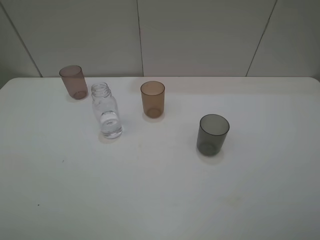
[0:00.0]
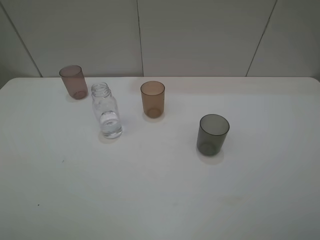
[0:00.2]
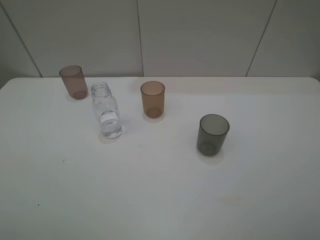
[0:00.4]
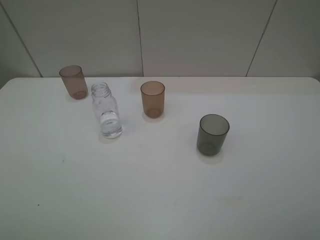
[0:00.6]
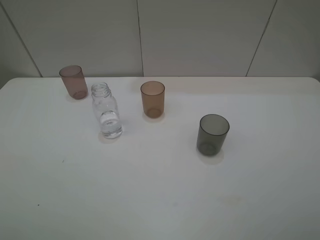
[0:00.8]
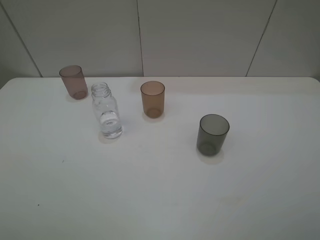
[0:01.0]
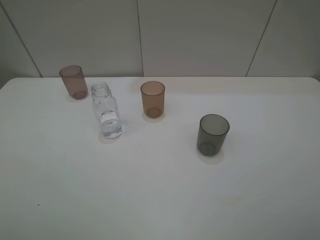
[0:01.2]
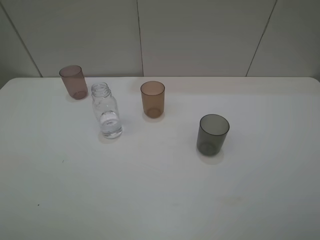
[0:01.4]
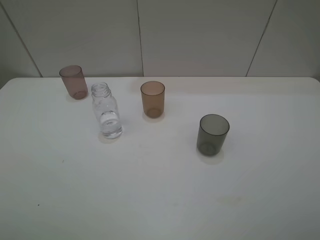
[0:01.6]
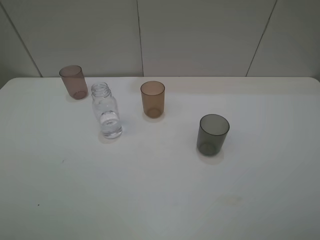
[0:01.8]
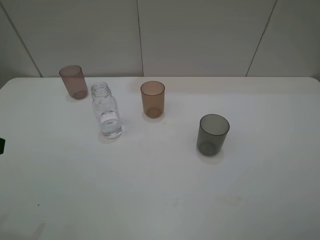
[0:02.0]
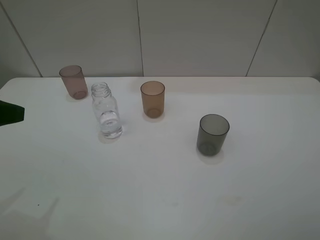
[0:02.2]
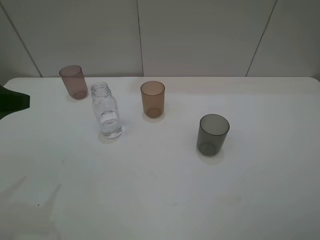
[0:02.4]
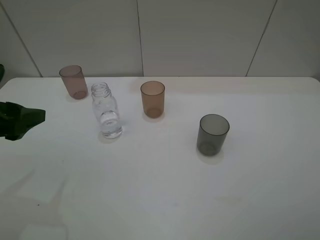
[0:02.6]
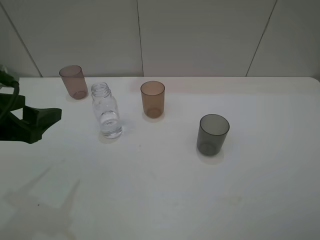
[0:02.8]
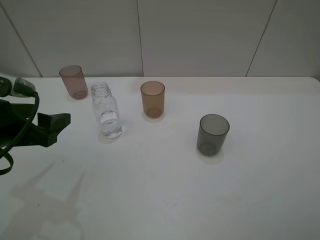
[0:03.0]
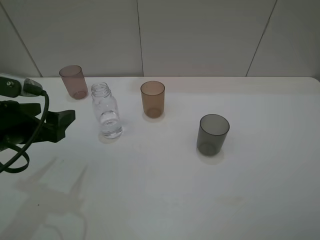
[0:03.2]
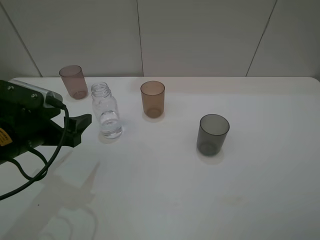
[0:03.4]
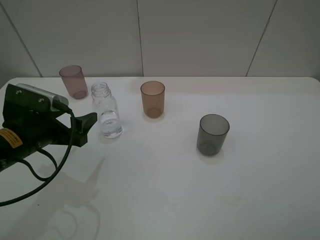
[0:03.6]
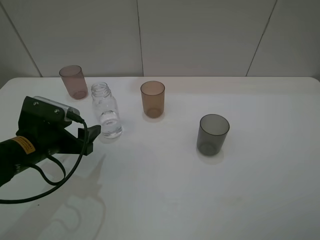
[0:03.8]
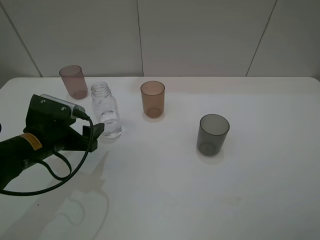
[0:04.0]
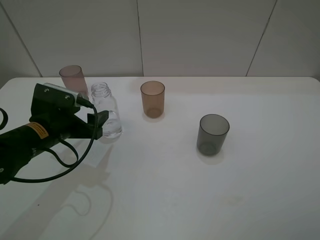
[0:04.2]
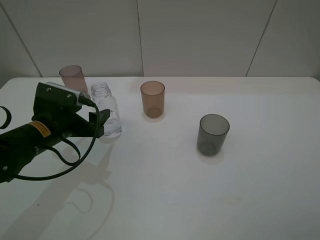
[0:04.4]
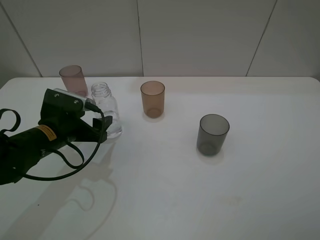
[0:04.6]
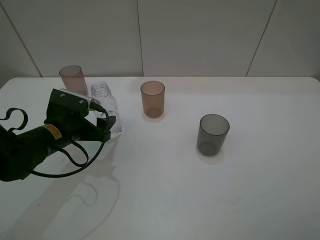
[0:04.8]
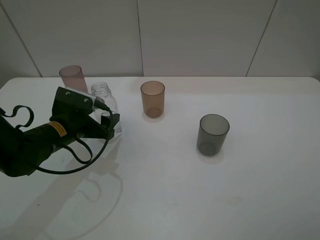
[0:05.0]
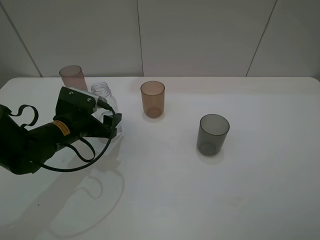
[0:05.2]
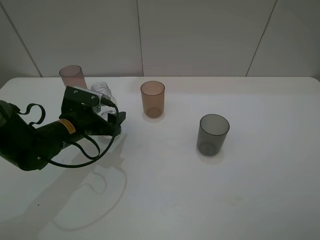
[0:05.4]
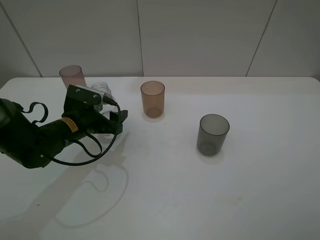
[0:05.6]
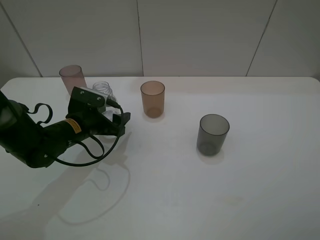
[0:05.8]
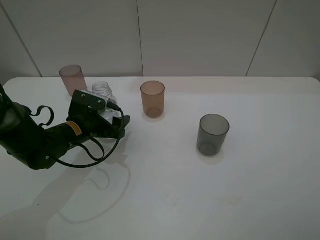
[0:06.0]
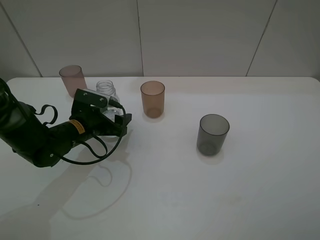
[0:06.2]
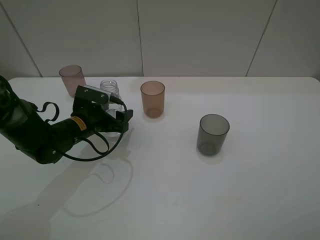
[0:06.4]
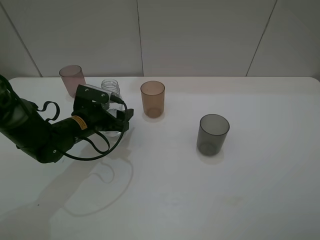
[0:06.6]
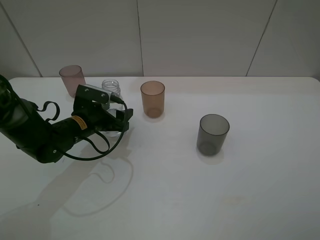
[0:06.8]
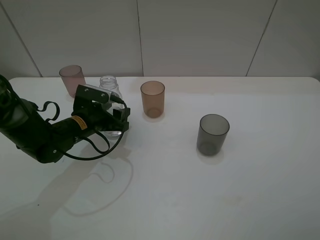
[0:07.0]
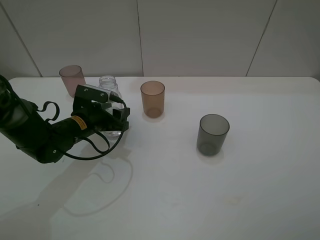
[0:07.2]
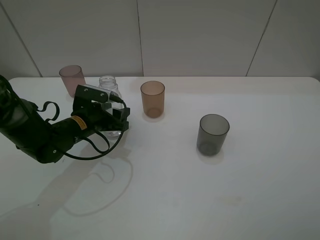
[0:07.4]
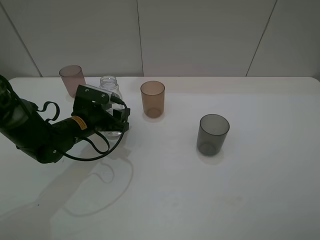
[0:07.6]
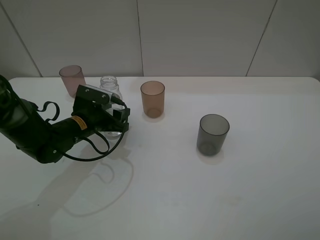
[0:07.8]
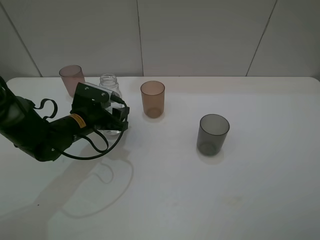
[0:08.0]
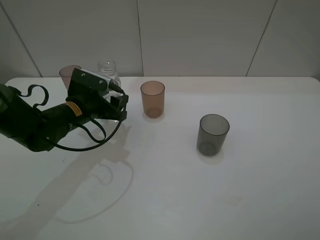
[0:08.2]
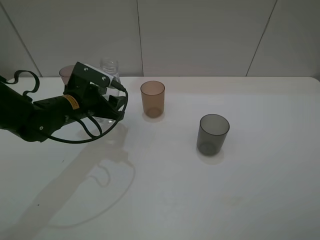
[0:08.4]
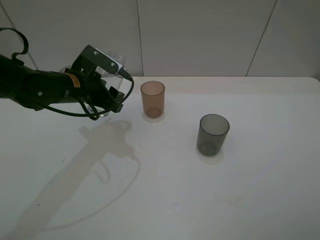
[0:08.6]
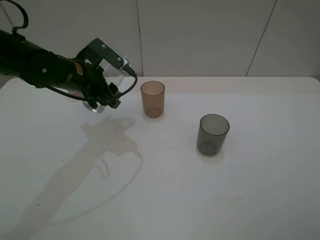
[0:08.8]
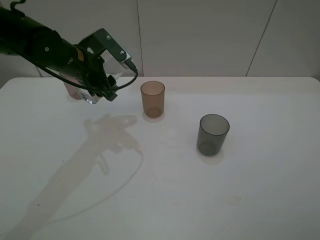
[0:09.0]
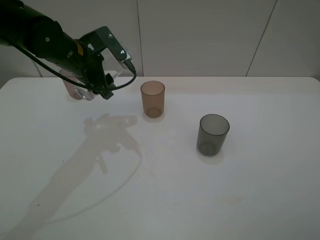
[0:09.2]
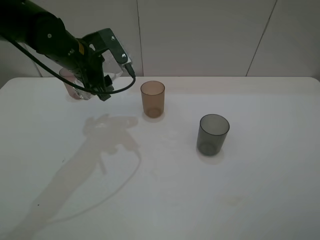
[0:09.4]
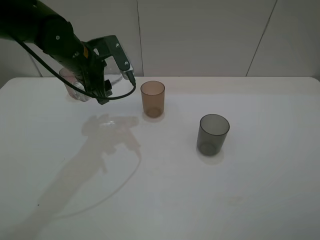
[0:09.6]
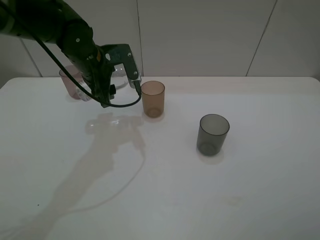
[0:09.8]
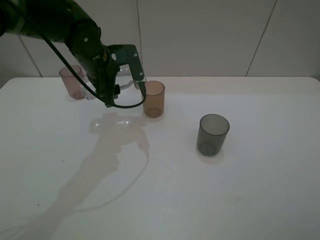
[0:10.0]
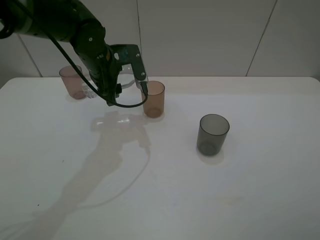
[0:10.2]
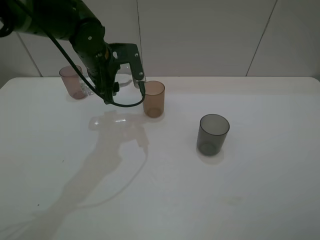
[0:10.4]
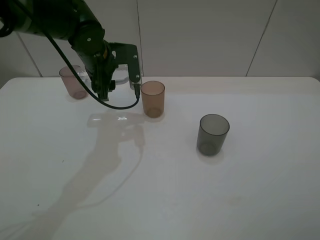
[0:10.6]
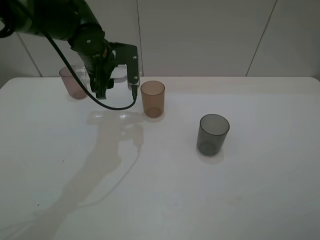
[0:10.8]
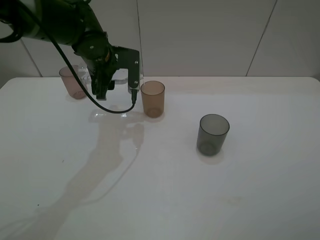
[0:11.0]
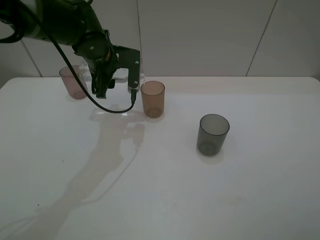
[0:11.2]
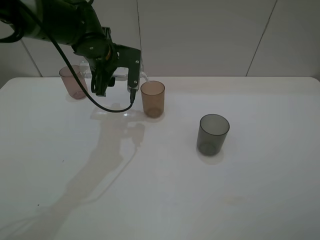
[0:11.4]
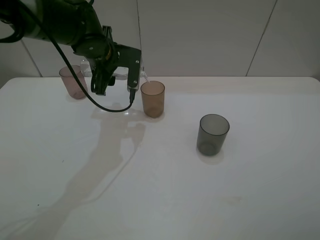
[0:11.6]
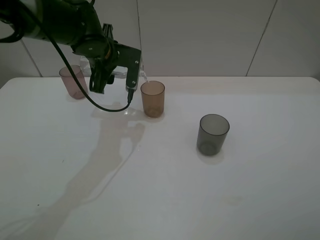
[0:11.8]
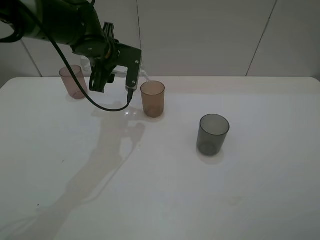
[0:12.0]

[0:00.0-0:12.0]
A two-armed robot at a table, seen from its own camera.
Task of the whole recording: pick up the bottle filled with water and pour water into the middle cup of the three cups.
Step, 0:00.0 to 0:05.8: Grasp the transparent bottle with the left gripper.
Step, 0:06.0 to 0:11.2: Pour water from transparent bottle to brown cup with the left gripper.
0:01.6 to 0:03.0: The left gripper moves forward, downward and to the right, approximately 20 cm.
0:03.0 to 0:04.4: The left gripper heads downward and forward, covering some 10 cm.
0:04.4 to 0:06.0: The left gripper shifts by some 5 cm.
0:06.0 to 0:07.6: The left gripper closes.
0:07.6 to 0:09.0: The left gripper is displaced upward and forward by some 15 cm.

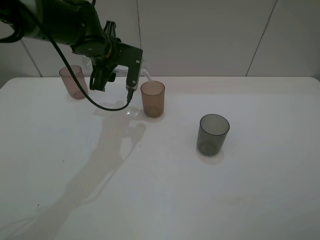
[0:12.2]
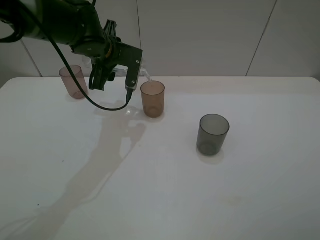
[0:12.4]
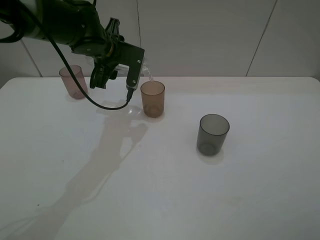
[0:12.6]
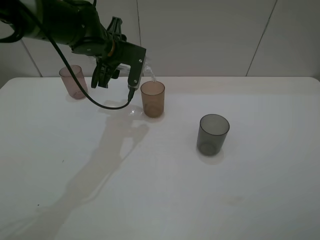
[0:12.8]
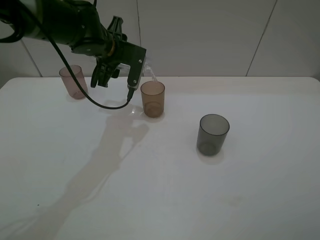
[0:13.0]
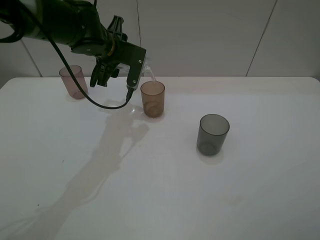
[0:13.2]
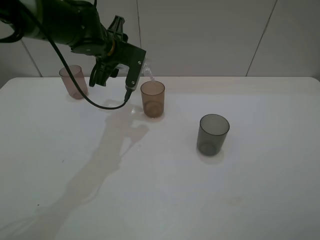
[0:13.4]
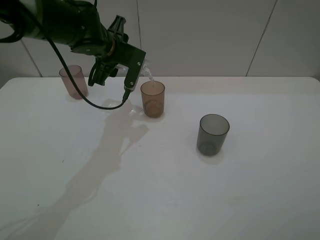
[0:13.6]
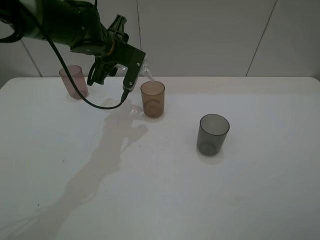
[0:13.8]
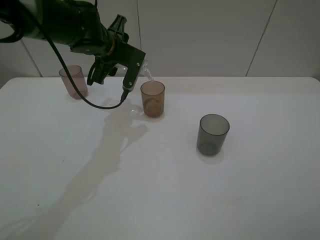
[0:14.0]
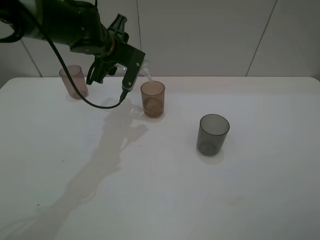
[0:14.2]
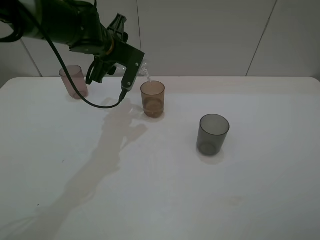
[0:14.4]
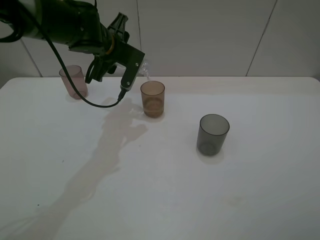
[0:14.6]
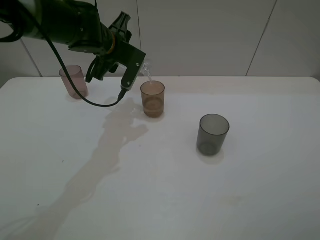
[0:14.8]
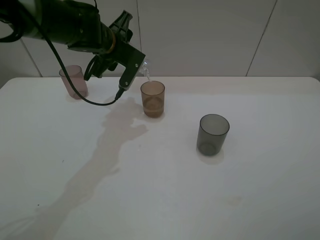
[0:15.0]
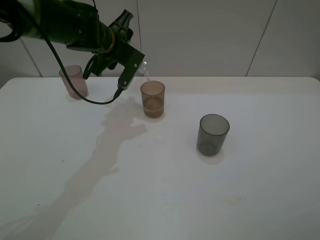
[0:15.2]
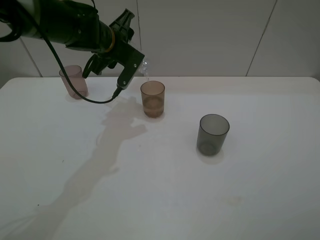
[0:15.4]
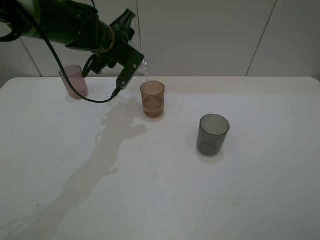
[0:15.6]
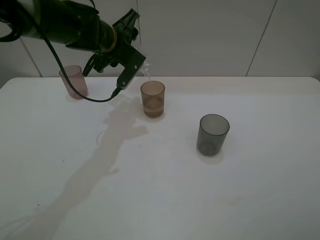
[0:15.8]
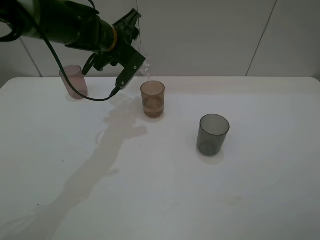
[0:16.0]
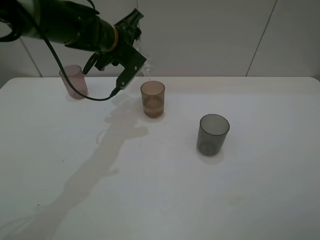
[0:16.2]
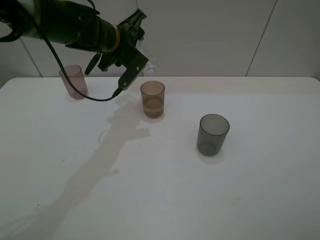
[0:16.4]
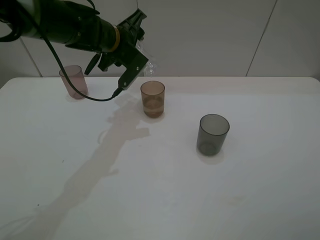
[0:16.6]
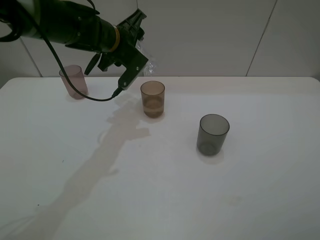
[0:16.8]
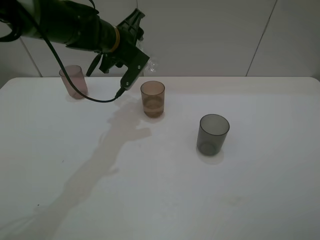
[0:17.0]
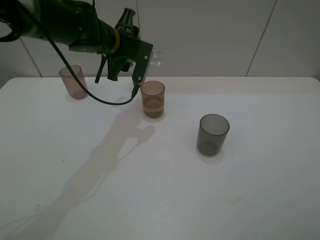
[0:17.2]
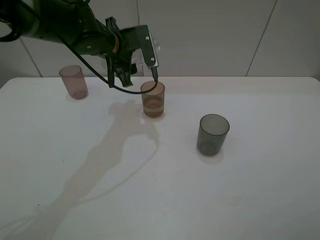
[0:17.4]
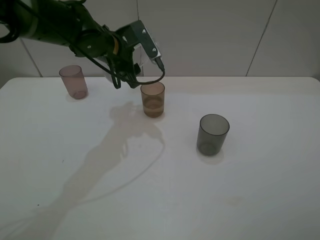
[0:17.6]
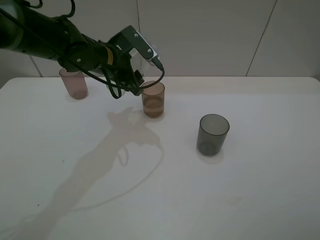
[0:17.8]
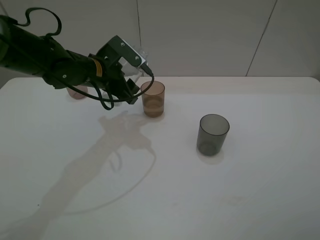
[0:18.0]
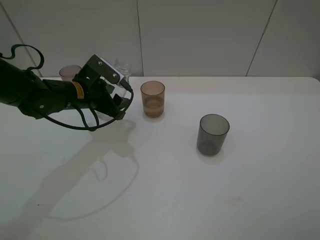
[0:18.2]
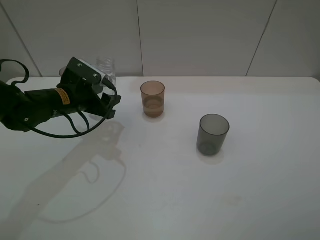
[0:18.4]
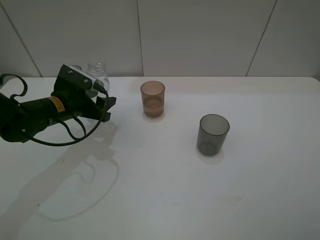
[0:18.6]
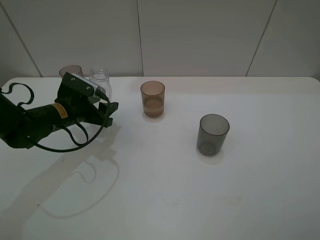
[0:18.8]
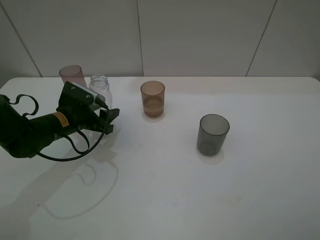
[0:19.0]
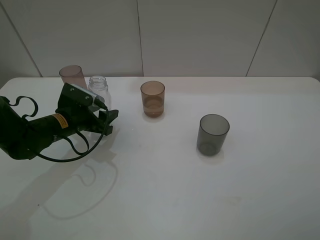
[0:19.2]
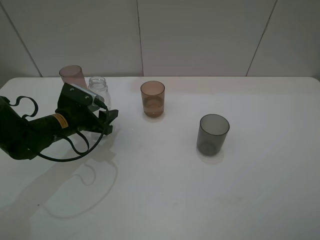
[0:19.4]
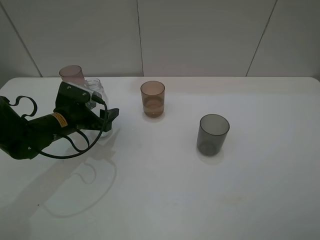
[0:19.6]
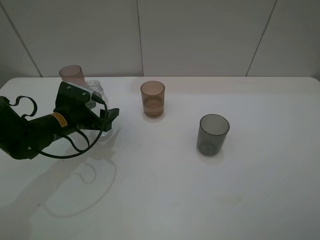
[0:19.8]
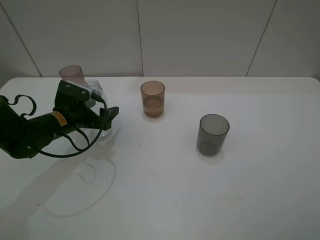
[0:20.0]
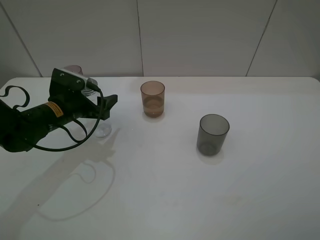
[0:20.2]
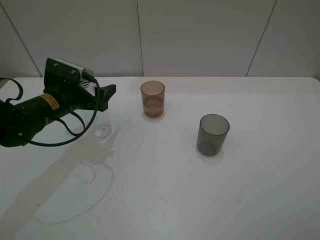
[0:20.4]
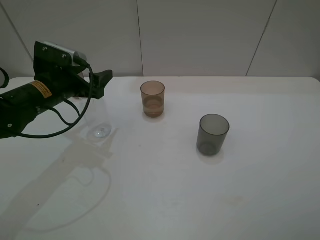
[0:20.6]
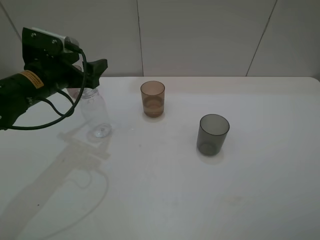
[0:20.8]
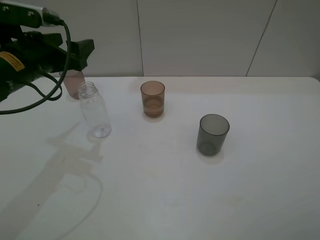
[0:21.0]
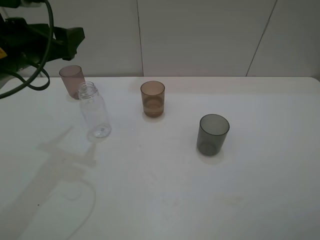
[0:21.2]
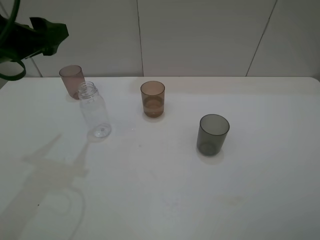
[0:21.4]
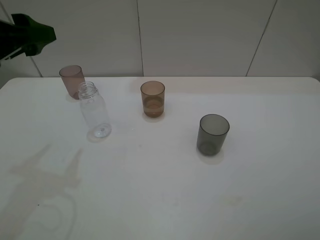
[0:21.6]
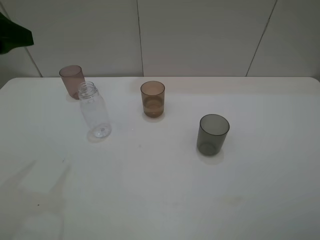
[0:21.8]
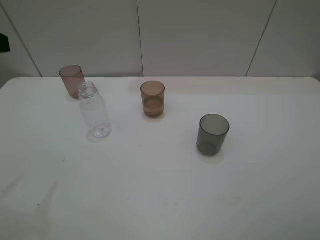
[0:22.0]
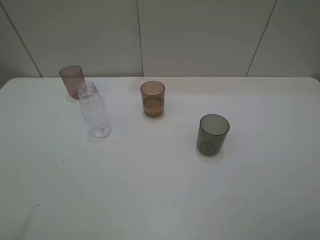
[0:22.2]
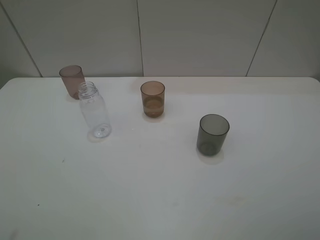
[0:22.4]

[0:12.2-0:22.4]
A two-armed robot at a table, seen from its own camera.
Task of the whole recording: pick up the bottle filled with water and pour water into the middle cup of the three cups.
Step, 0:12.2 to 0:20.4: Place the transparent bottle with the left gripper.
0:12.2 to 0:13.6: The grippers move only a little.
0:13.6 to 0:15.2: The grippers stay close to where they were, moving slightly.
0:15.2 to 0:16.6: The grippers make only small movements.
0:16.6 to 0:18.0: The left gripper shifts by approximately 5 cm.
0:18.0 to 0:19.4: The left gripper moves downward, to the left and backward, approximately 15 cm.
0:19.4 to 0:21.0: The left gripper is displaced upward by about 15 cm, and opens its fingers.
0:21.0 to 0:22.4: The left gripper shifts roughly 25 cm backward and upward.
